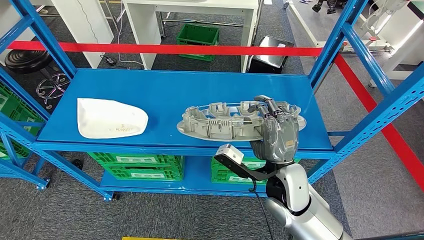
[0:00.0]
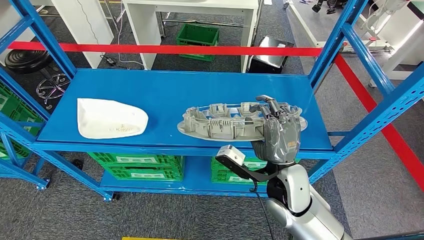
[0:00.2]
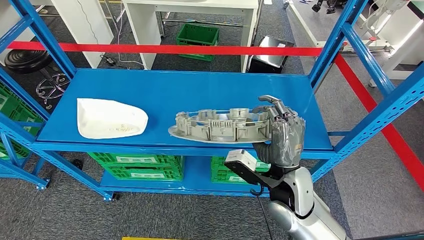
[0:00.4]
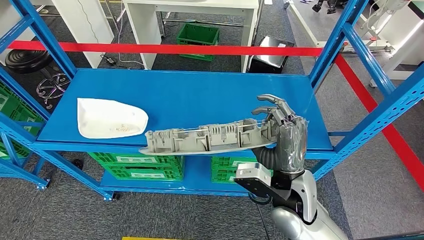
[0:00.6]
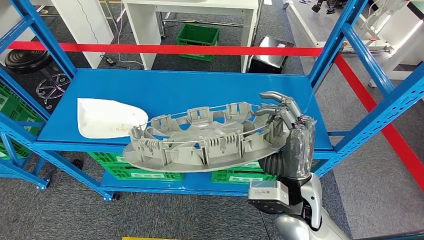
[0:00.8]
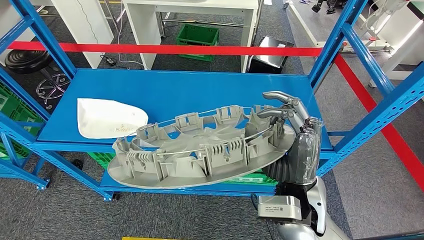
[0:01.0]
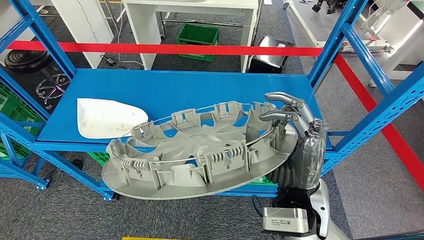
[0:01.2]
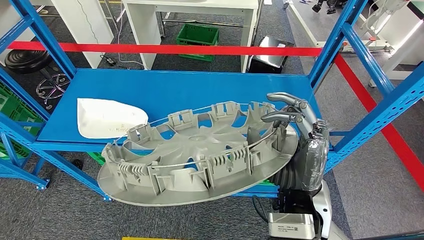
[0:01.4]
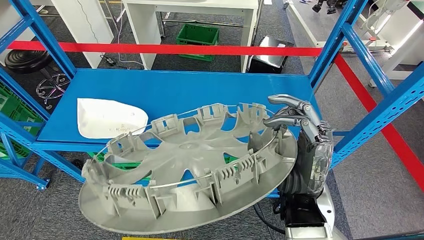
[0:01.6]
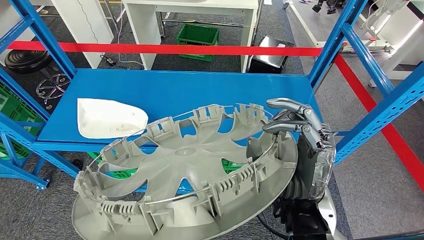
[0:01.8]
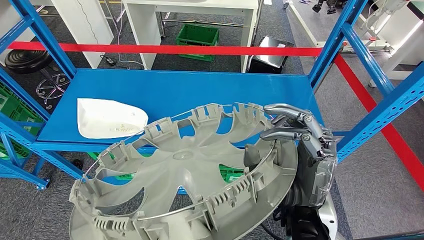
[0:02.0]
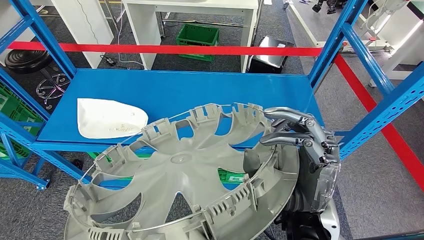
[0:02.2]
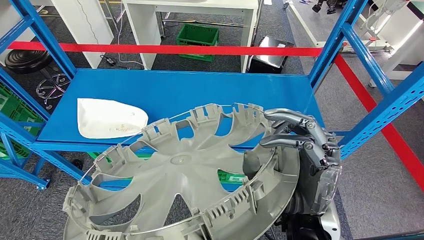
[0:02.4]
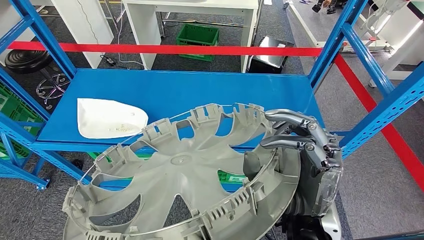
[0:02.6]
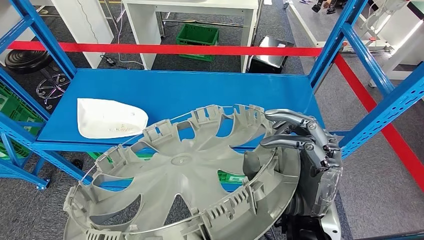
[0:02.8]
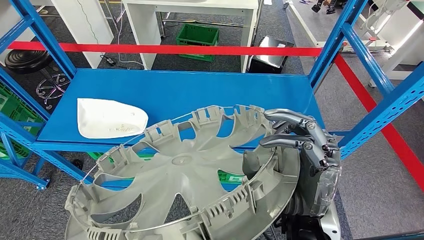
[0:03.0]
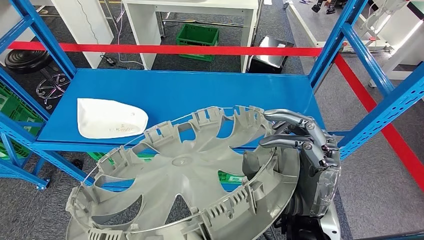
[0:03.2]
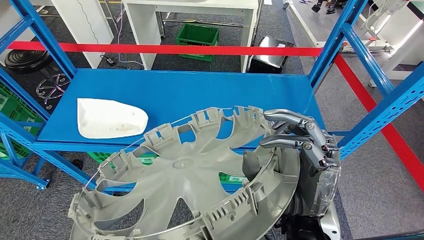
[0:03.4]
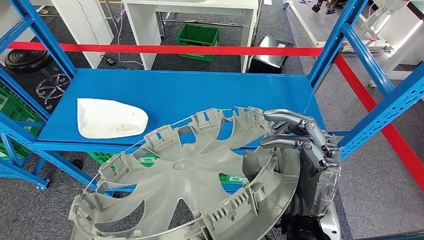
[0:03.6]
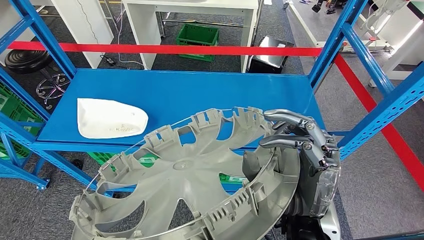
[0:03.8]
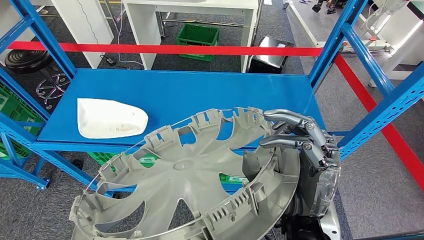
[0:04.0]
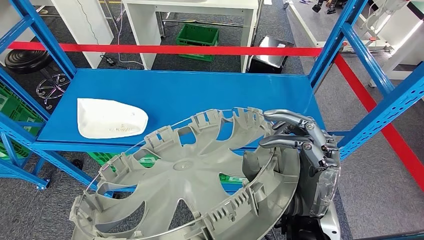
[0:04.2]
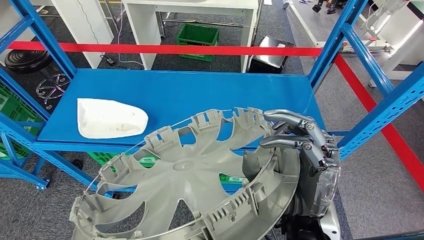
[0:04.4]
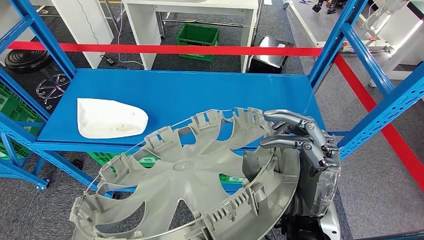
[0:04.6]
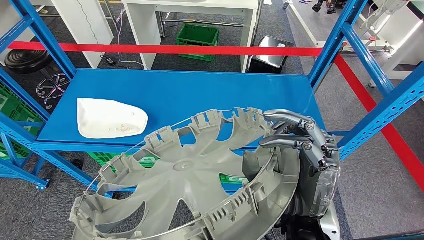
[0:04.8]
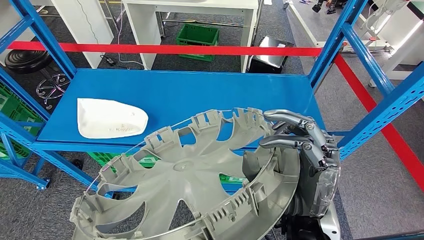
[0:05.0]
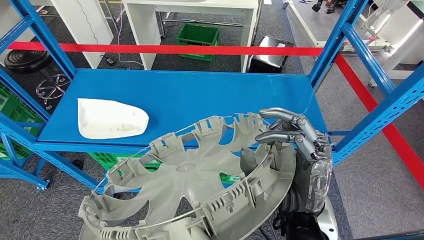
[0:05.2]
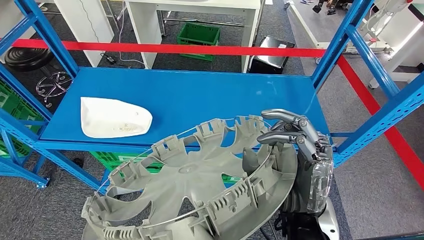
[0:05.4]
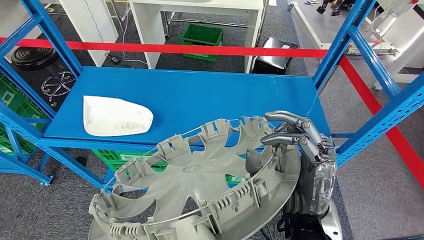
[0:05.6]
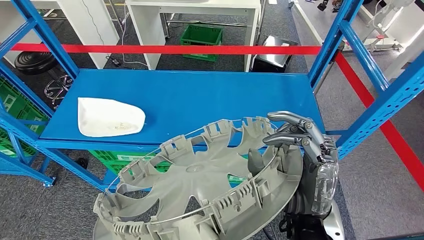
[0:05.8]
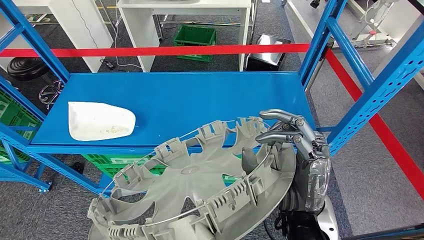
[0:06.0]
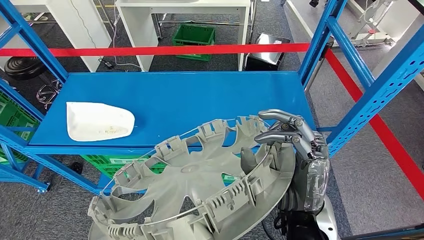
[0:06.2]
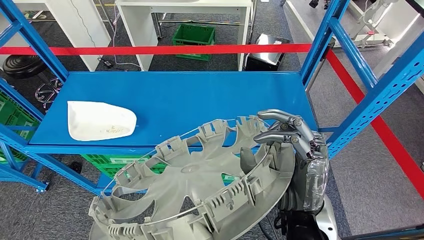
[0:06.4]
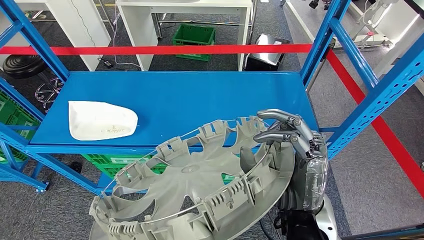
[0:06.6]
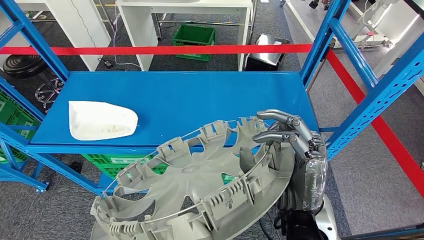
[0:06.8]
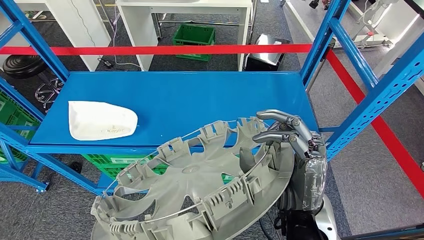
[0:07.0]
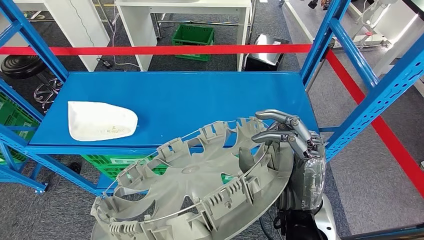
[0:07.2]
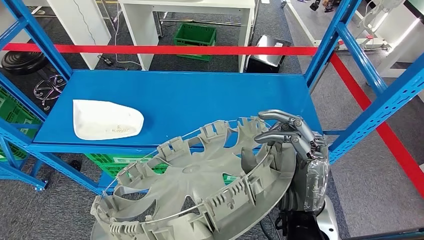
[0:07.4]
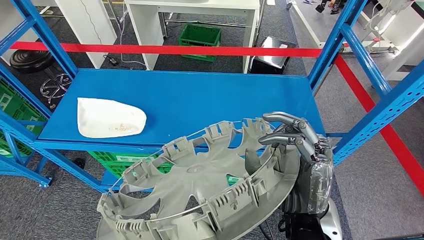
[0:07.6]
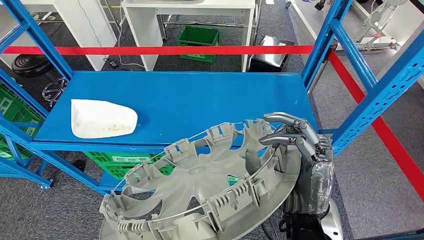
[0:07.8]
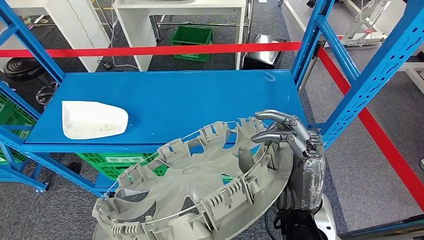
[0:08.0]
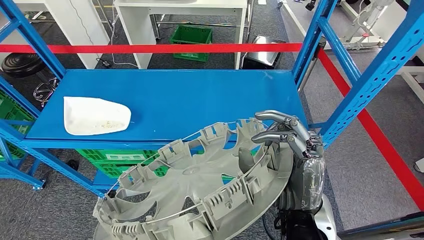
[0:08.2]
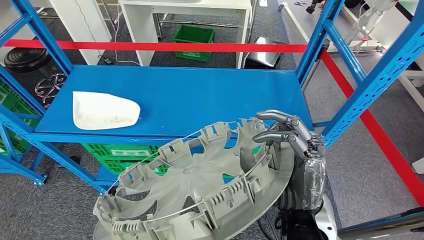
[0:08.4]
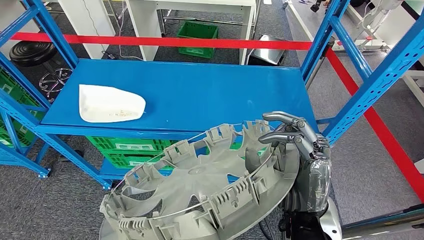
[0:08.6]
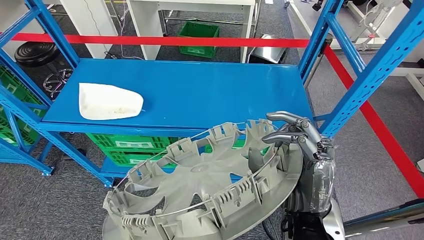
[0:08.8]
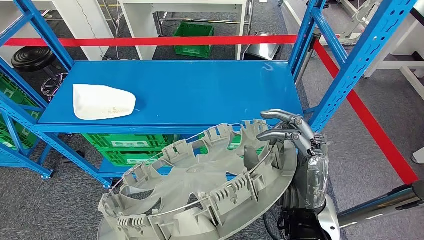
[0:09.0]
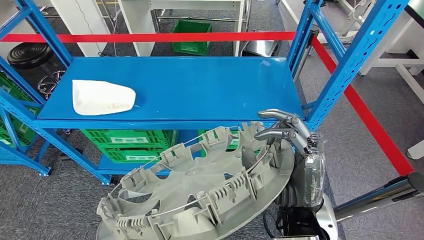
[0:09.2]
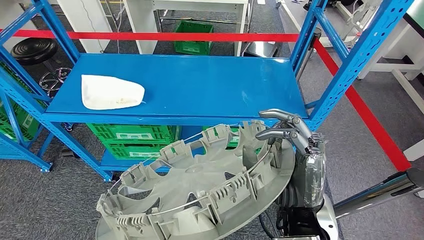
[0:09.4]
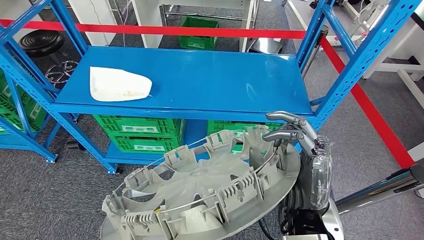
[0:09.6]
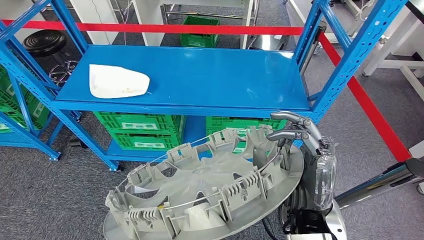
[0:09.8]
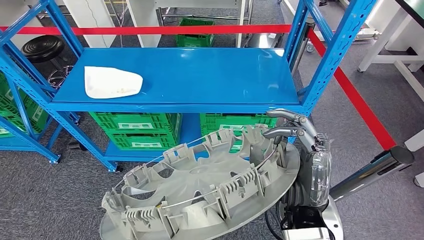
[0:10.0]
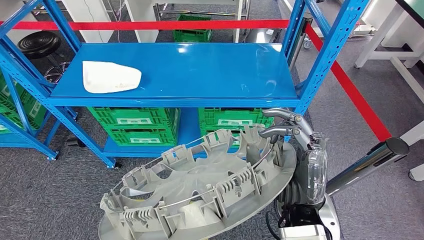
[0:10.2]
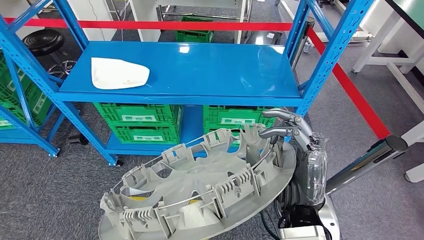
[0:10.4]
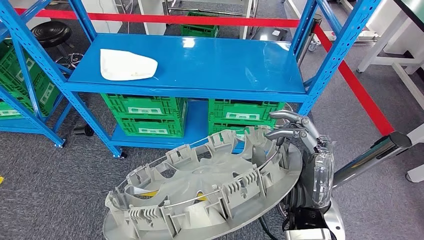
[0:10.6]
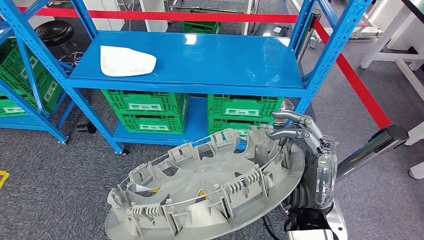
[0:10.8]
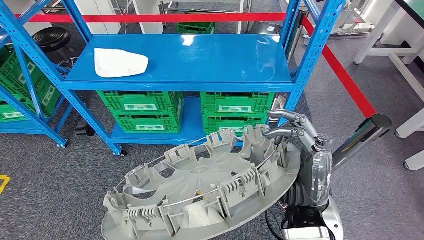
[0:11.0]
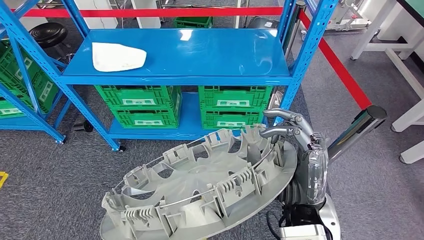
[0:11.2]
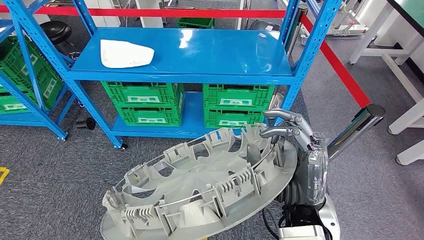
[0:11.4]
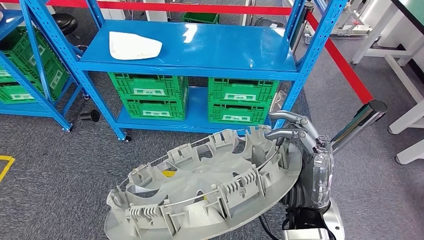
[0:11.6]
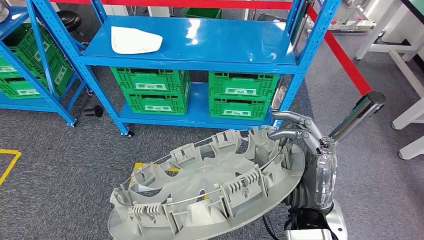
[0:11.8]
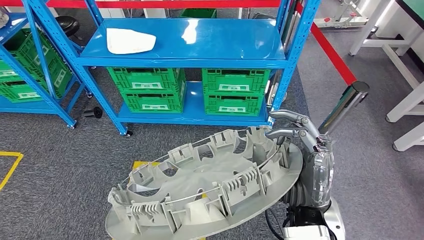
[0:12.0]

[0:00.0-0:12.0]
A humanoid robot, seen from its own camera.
Step, 0:00.0 to 0:03.6: Pick up the large material from the shelf.
0:01.6 to 0:03.0: The hands move only a little.
0:03.0 to 0:04.4: Both hands stay about where they are.

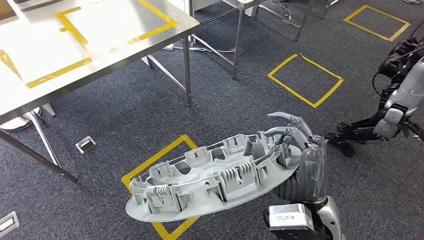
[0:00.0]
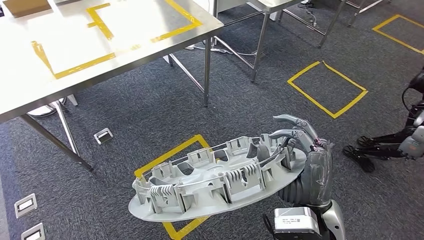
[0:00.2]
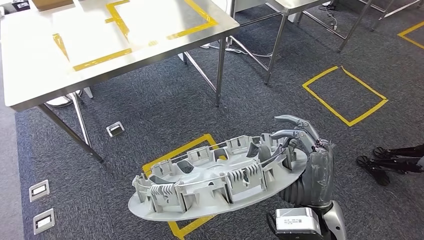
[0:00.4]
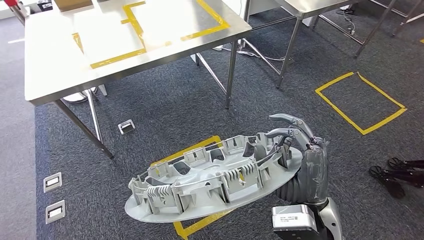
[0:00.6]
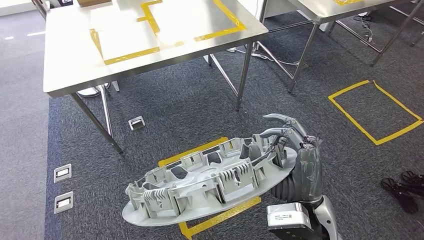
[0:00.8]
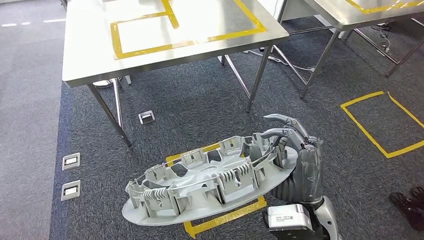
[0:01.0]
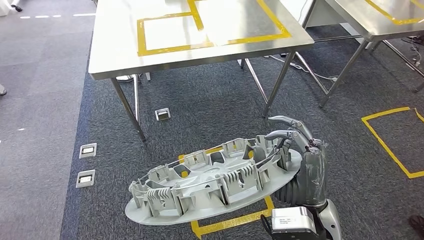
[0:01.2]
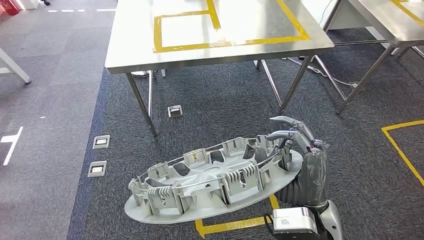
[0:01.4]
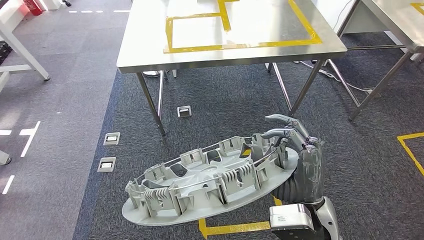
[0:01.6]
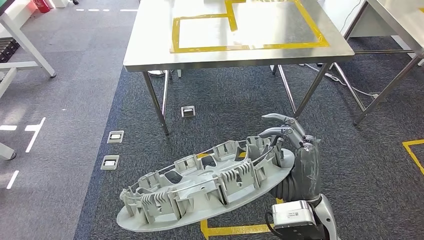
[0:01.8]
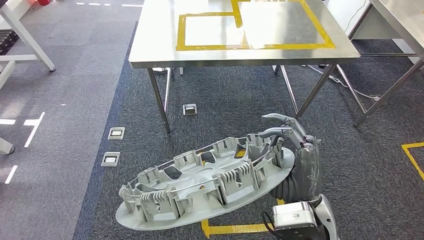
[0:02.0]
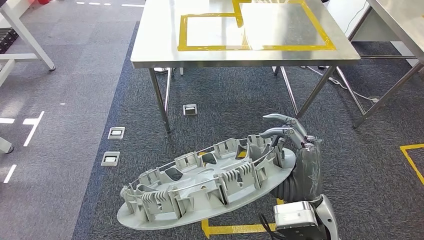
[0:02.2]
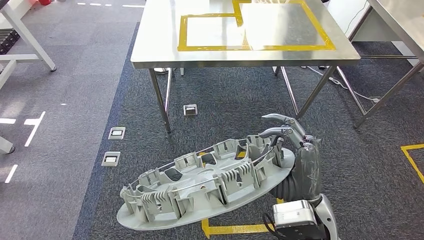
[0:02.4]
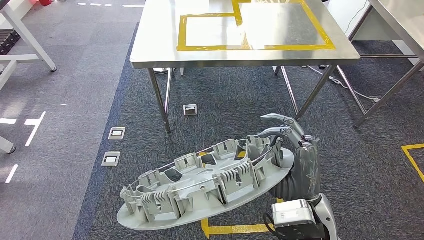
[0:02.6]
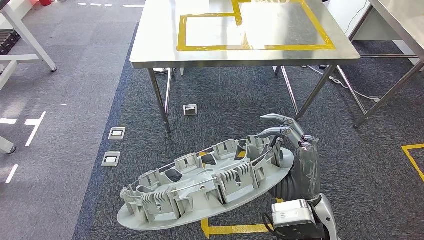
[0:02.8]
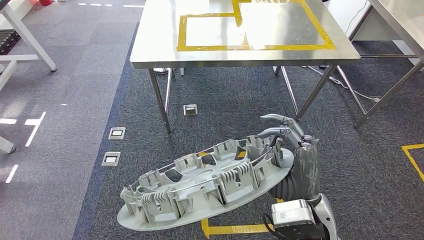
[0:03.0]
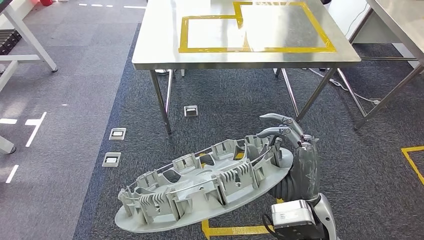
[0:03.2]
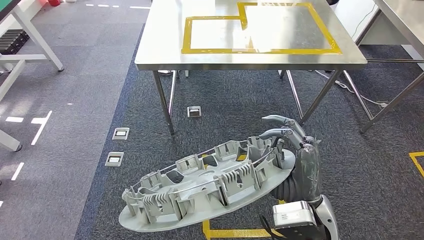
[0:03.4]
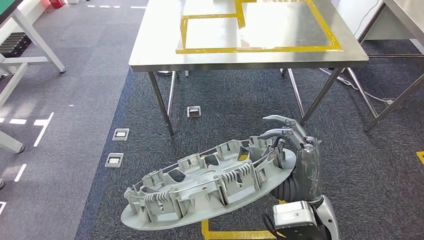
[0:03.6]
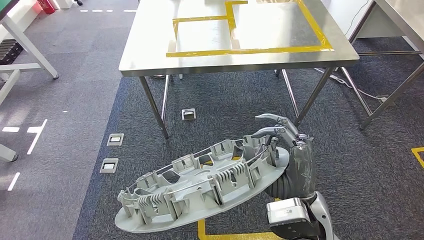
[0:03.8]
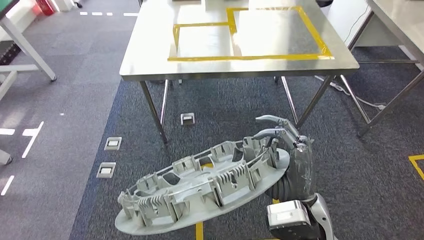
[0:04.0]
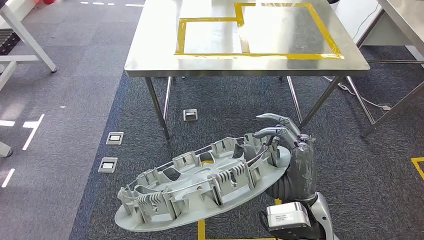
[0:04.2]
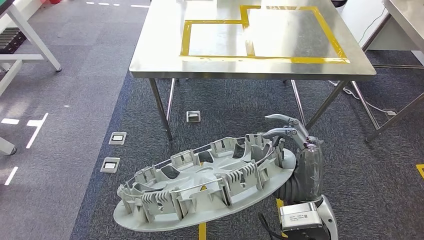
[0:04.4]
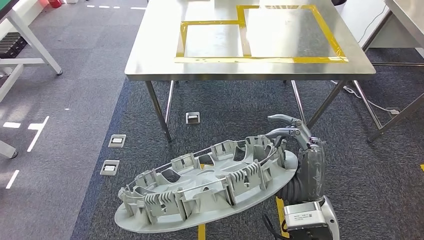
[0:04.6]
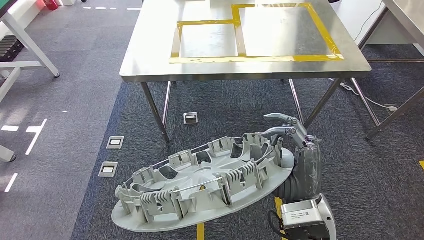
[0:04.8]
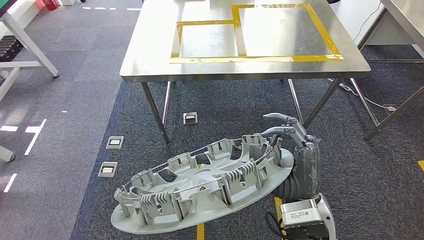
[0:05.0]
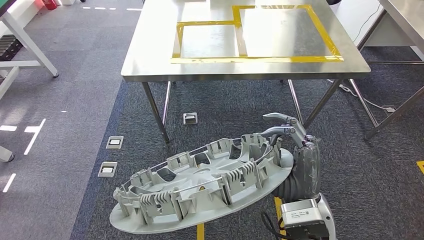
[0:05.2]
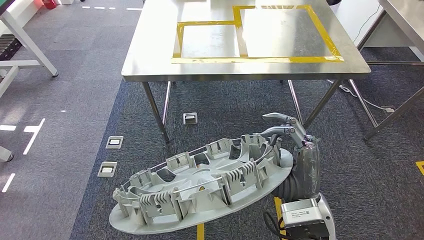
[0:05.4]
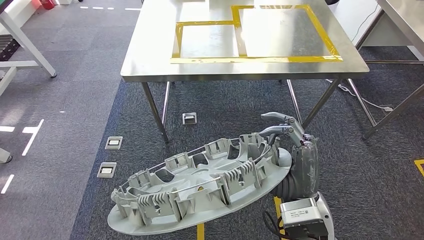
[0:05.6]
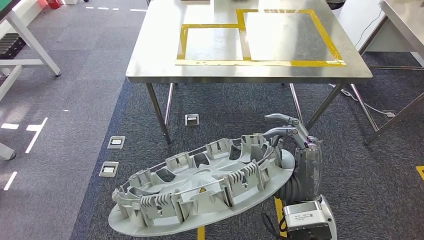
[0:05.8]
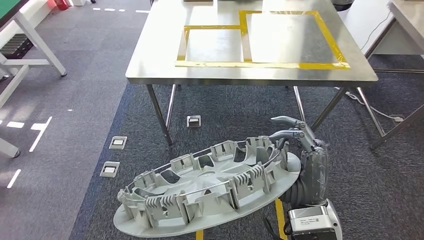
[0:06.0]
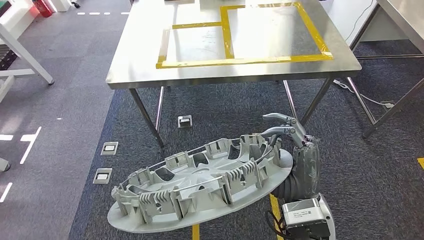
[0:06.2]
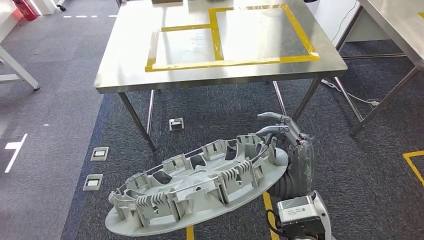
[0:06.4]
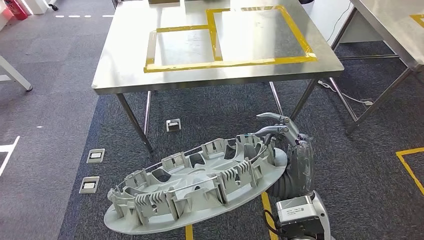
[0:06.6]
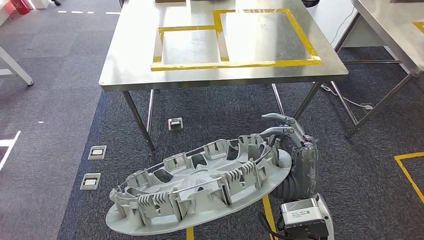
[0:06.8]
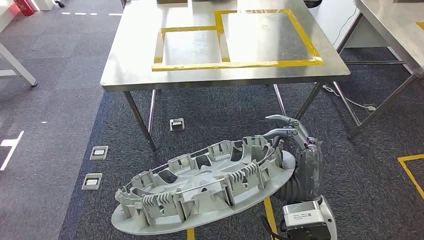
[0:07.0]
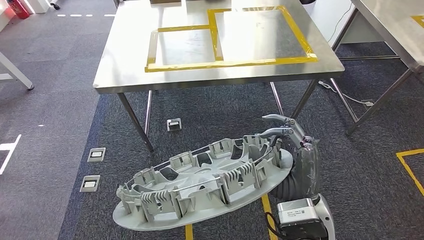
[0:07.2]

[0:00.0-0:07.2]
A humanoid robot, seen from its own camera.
0:04.4 to 0:05.8: Both hands stay about where they are.